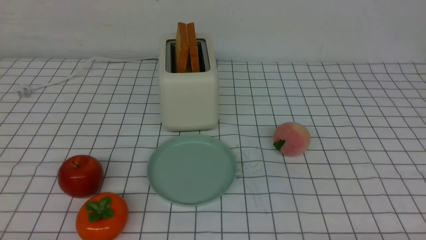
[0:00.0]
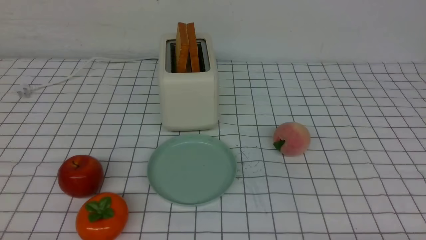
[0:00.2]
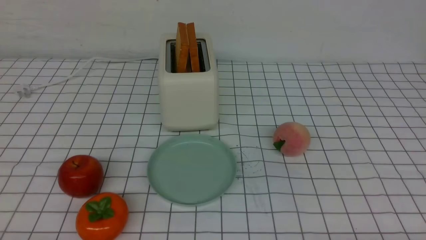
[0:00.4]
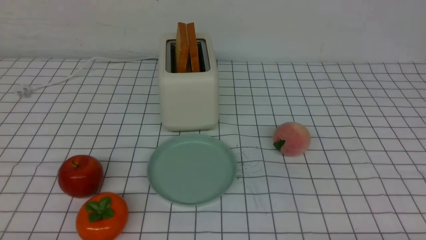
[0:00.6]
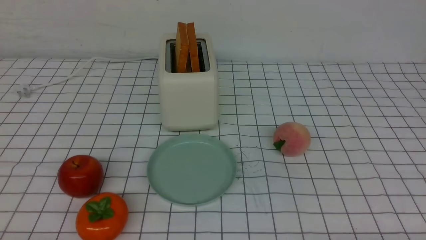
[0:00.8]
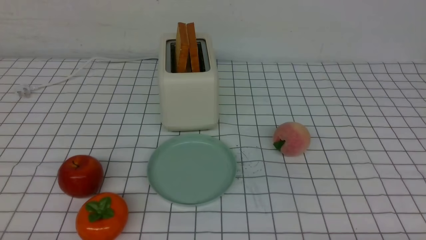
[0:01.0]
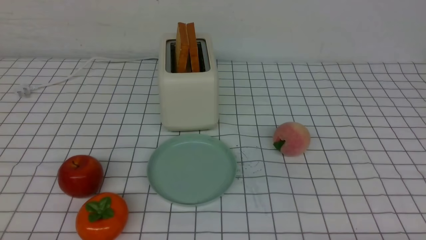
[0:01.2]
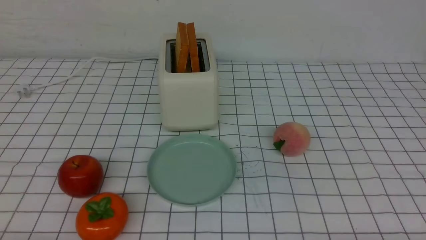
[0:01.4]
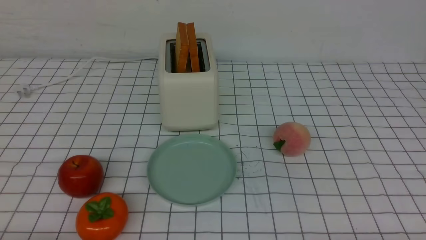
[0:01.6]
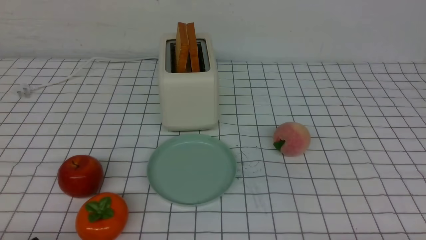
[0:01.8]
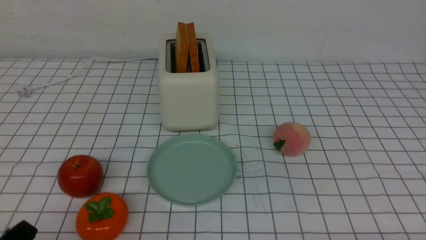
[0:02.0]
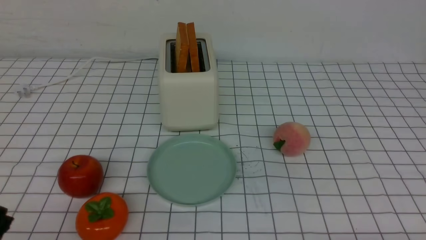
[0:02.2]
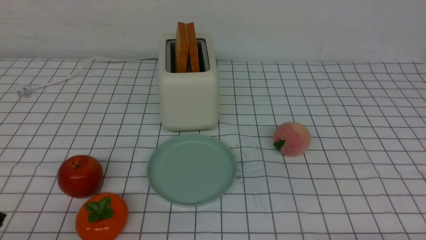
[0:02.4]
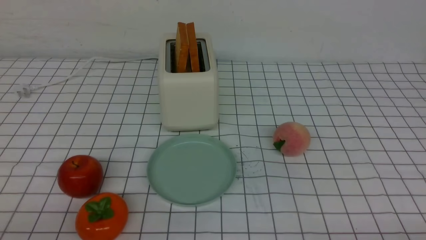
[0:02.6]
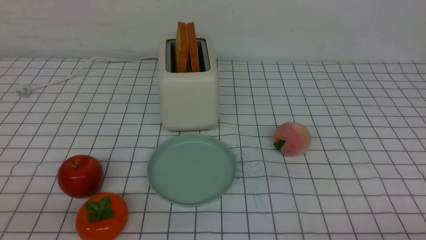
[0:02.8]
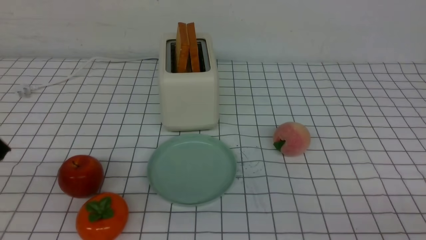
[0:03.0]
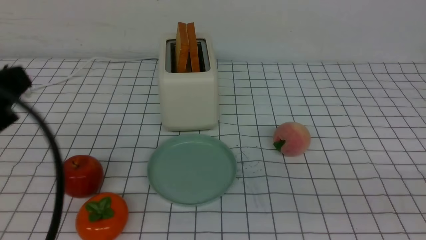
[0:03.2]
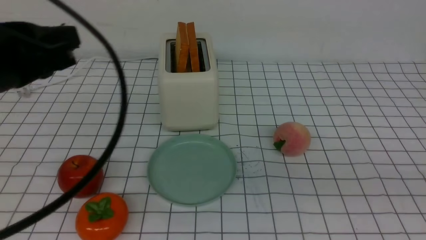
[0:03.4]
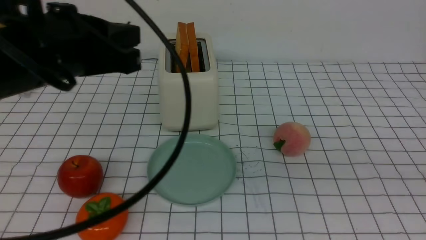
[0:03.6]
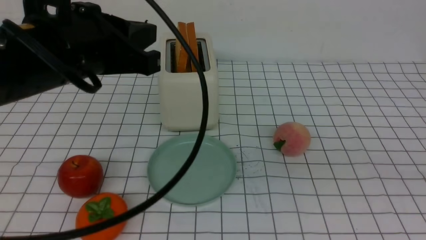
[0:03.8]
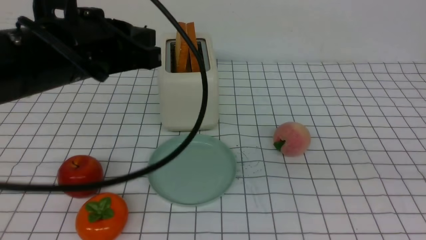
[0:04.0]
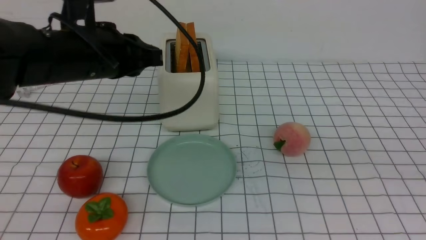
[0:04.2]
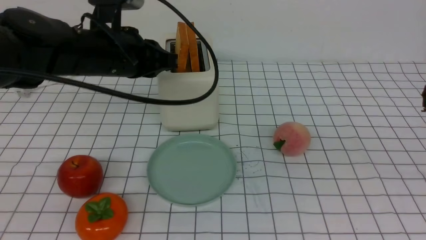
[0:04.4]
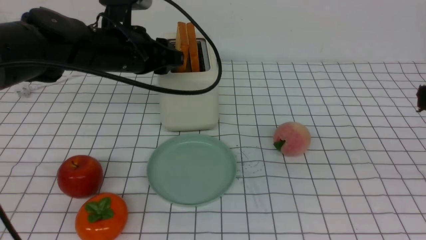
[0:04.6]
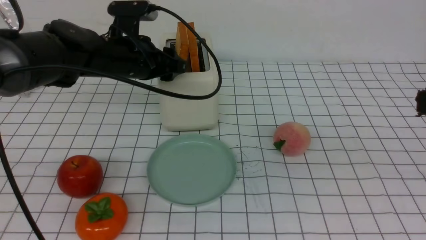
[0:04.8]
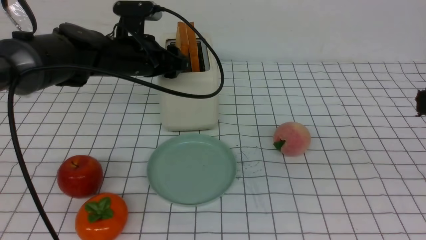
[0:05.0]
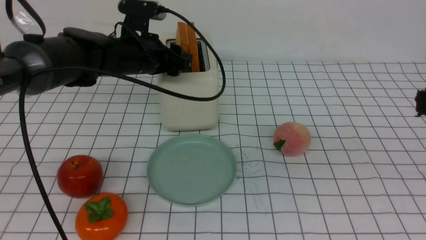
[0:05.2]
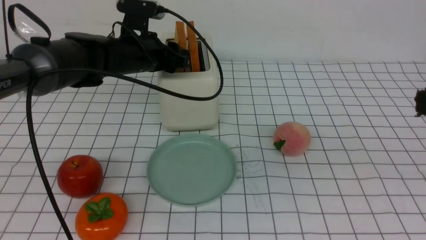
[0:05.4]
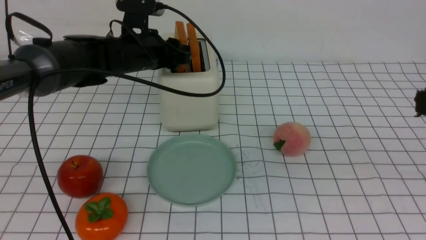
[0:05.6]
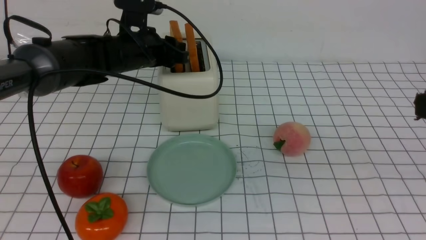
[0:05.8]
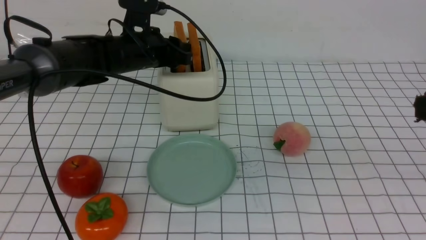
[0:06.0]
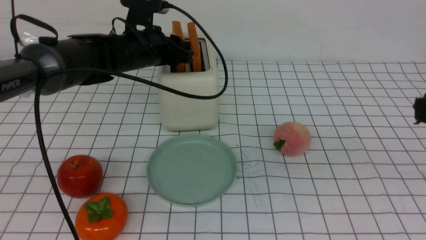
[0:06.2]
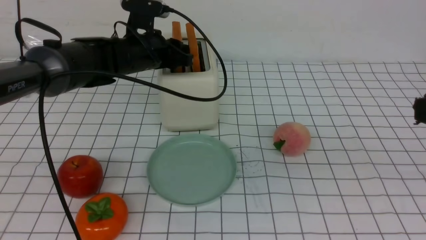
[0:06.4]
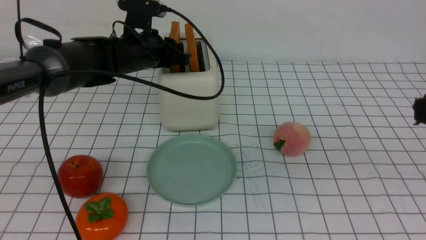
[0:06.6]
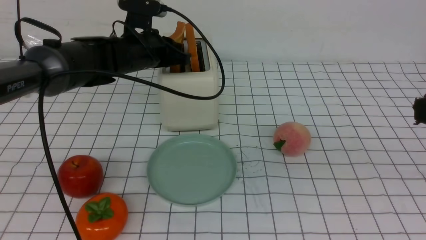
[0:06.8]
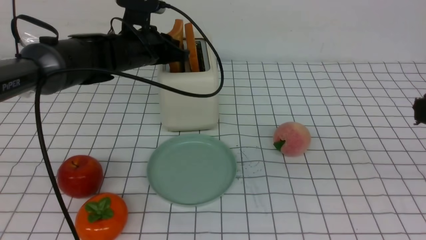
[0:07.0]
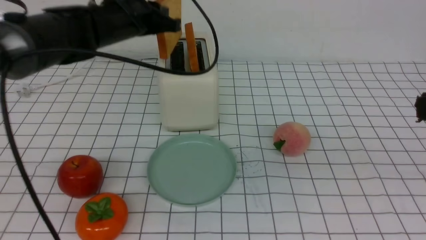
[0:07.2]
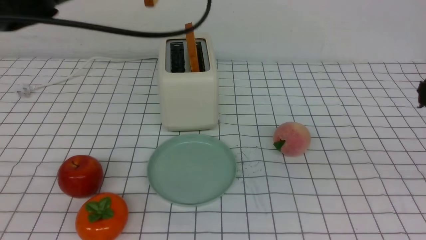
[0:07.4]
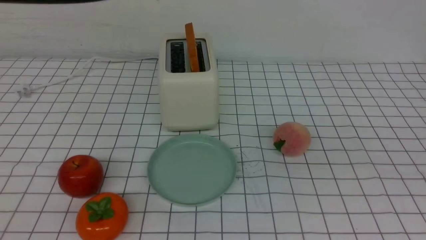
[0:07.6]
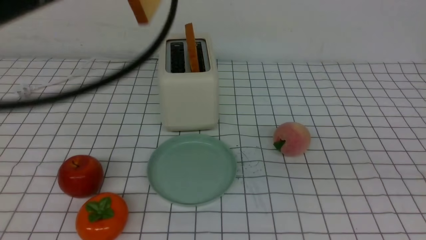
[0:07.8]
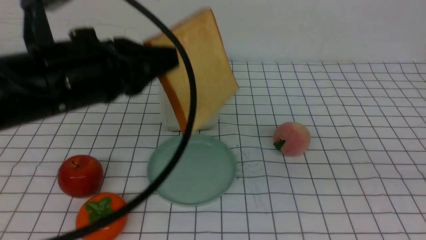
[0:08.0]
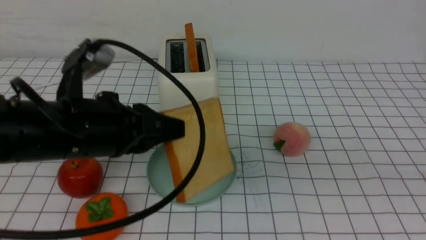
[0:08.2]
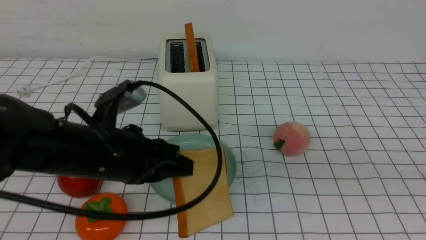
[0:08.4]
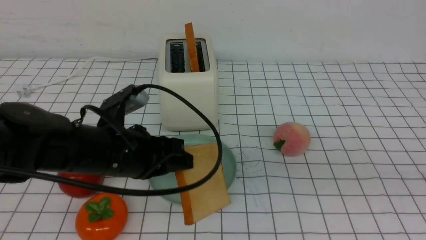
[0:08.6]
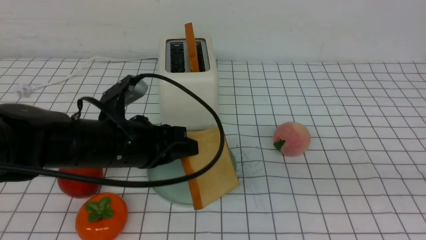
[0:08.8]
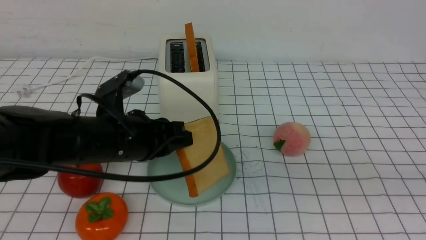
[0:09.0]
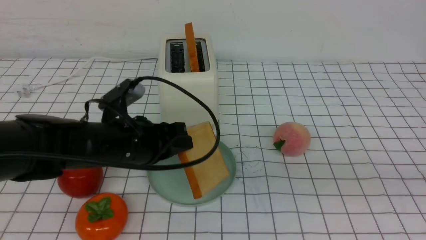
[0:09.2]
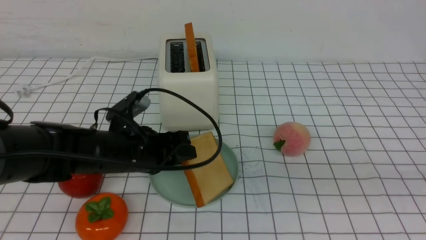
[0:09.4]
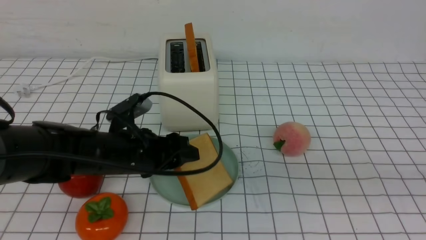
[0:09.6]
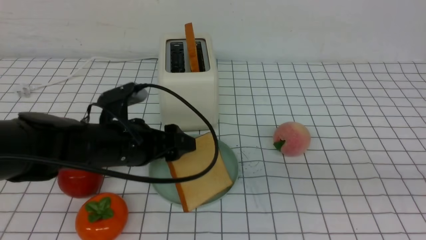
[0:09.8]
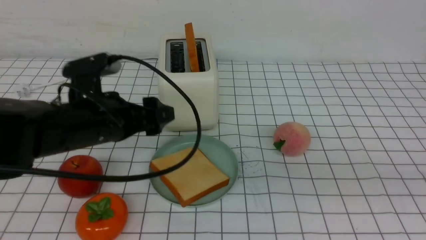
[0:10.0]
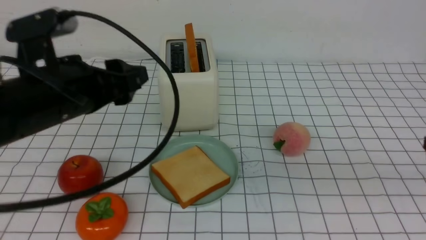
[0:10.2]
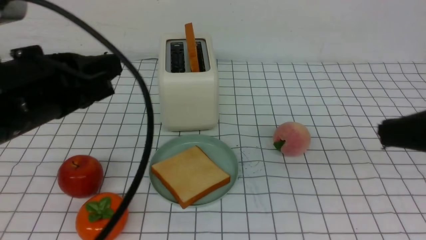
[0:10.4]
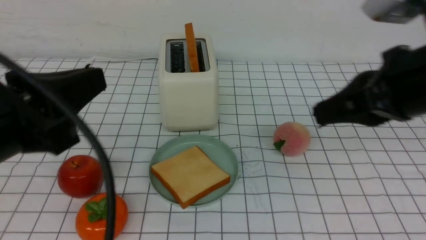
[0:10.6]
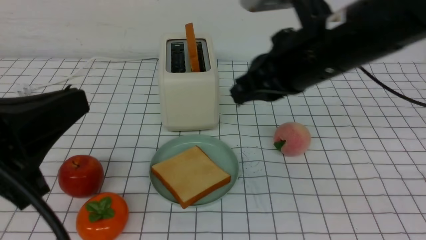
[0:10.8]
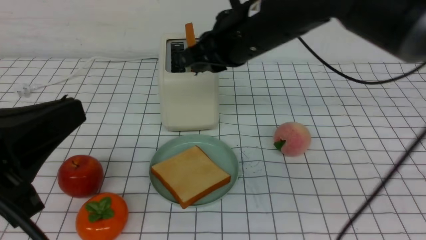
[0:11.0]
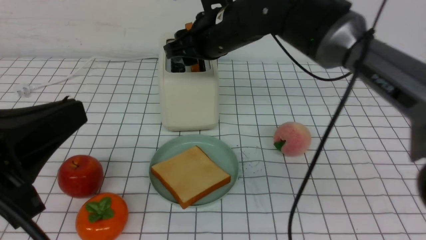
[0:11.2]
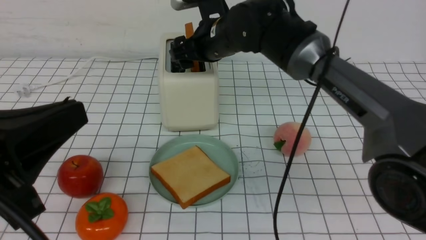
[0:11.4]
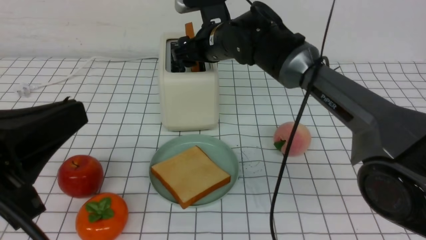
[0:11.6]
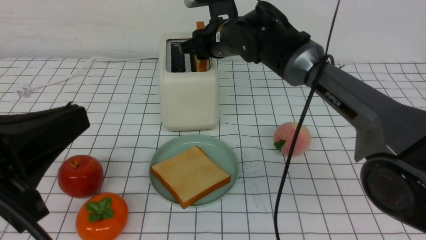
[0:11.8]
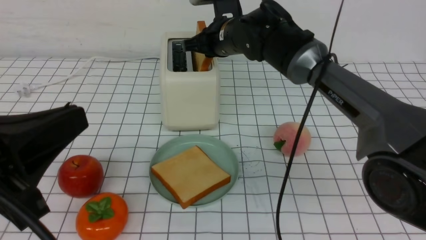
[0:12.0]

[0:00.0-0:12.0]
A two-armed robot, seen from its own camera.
Task of the whole recording: take toasted bread from bread machine on white checkered table place on plate.
Step, 0:00.0 to 0:07.0: use the left arm to take out a slice of bread.
Step, 0:07.2 to 0:09.8: use the left arm to put a slice of bread into the empty plate.
0:03.0 to 0:04.4: The right gripper is displaced upward and forward by about 15 cm. The left gripper is displaced forward by roughly 30 cm.
0:04.4 to 0:06.0: The left gripper moves forward, some 10 cm, and opens.
0:06.0 to 0:07.6: The left gripper shifts roughly 20 cm upward and backward, and closes its fingers.
0:07.6 to 0:09.0: The left gripper shifts some 20 cm downward.
0:09.0 to 0:10.4: The left gripper goes approximately 15 cm upward, backward and to the left, and opens and closes again; the right gripper travels forward by some 5 cm.
0:10.4 to 0:12.0: The left gripper shifts approximately 10 cm backward, while the right gripper goes about 35 cm forward and to the left, and opens, then closes again.

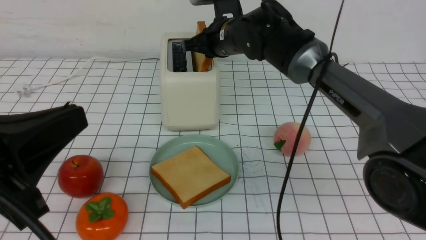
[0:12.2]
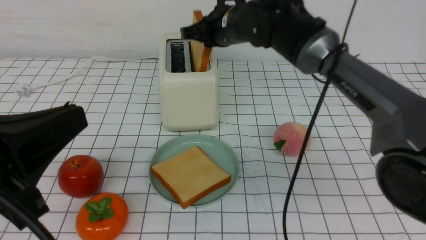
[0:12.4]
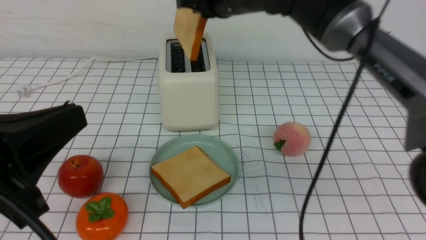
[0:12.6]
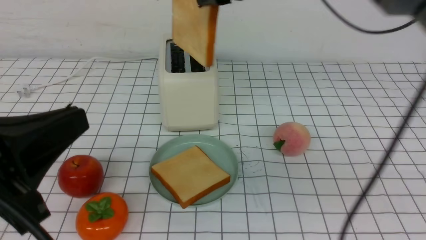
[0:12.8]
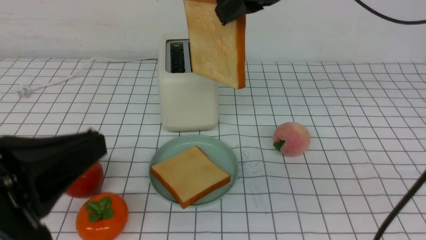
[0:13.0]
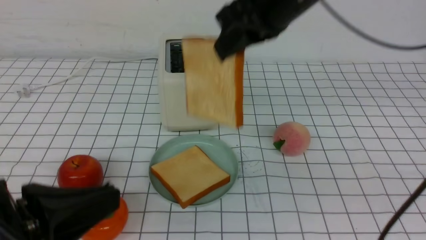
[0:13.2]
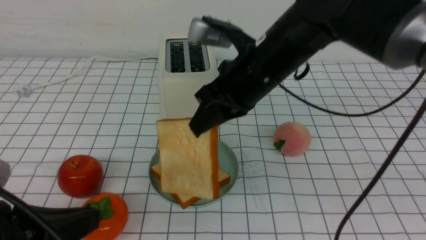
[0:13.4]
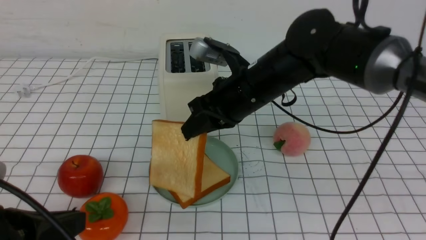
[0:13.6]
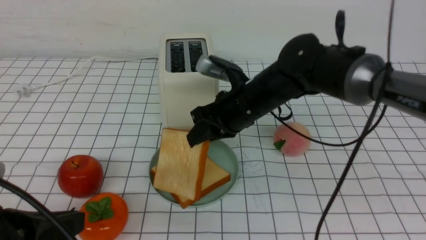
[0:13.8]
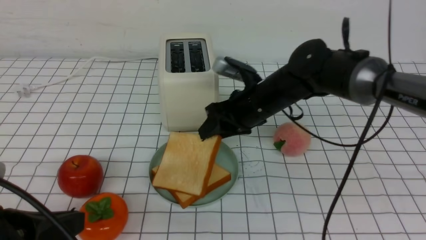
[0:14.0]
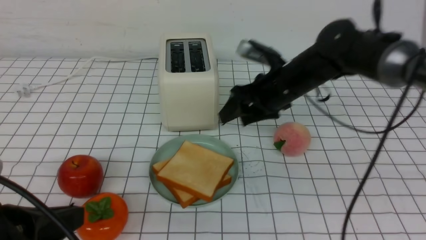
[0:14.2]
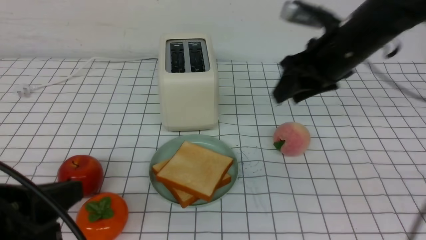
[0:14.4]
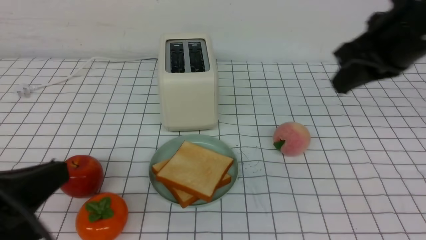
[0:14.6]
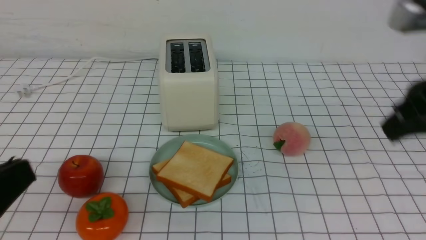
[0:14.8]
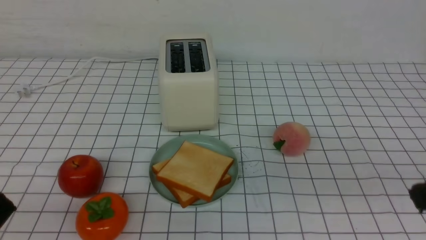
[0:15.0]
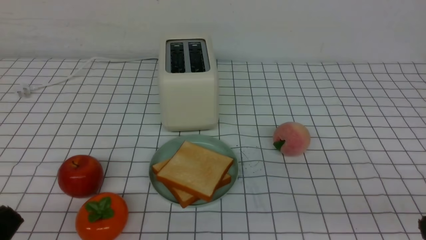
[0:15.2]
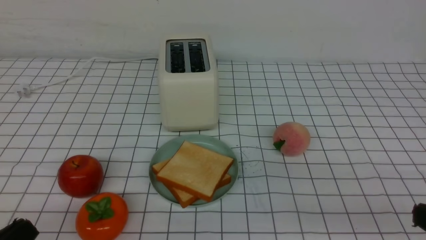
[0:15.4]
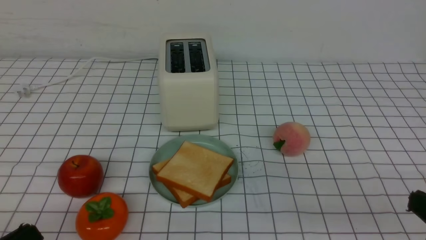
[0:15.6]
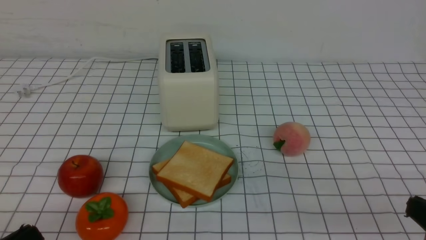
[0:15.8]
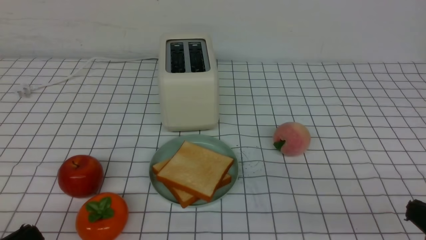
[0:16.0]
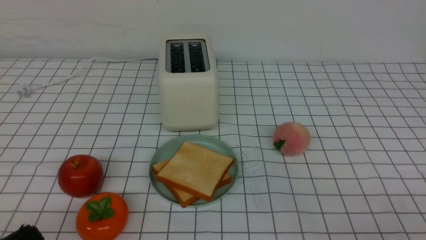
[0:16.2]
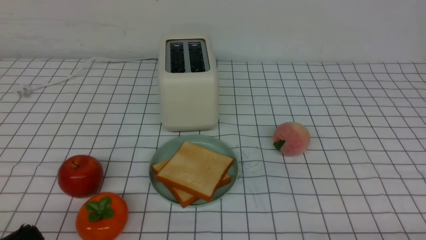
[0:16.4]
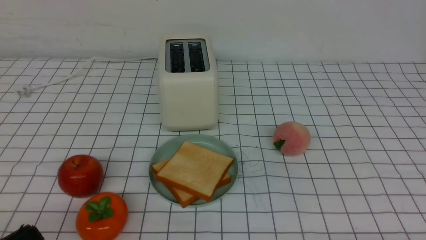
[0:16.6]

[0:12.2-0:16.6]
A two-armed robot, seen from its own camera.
Task of the whole recording: take toasted bread from bread machine on white checkered table place on plate.
Step, 0:12.6 to 0:14.0: use the right arm to put a slice of bread into the plate.
0:12.2 to 0:13.6: The left gripper shifts some 5 cm downward; the right gripper shifts about 10 cm backward, and travels upward and back again, about 15 cm each way.
0:13.6 to 0:15.2: The right gripper is displaced backward and to the right by roughly 30 cm, and opens, then closes once more. The left gripper goes some 5 cm backward.
0:15.2 to 0:16.6: The right gripper heads downward and backward, covering approximately 15 cm.
